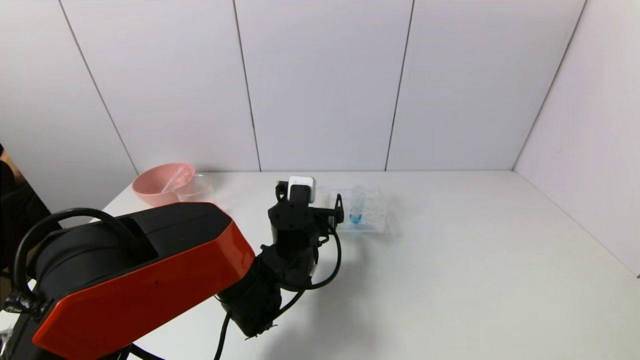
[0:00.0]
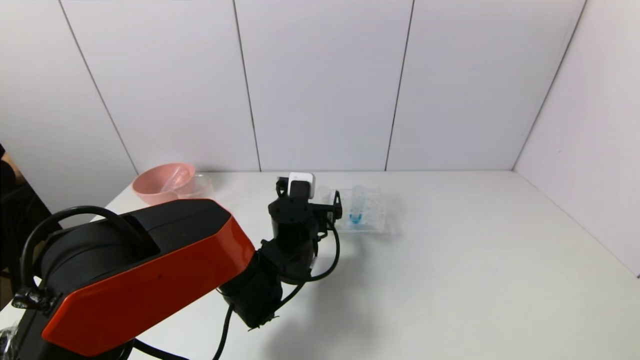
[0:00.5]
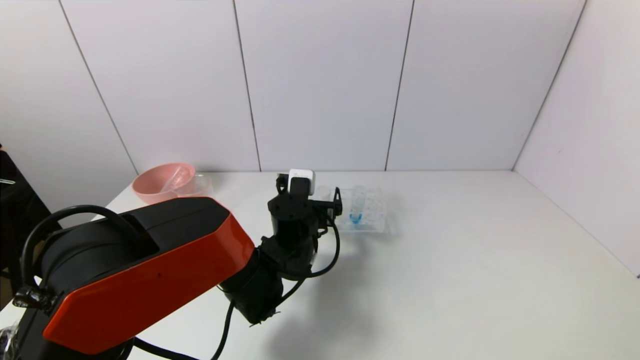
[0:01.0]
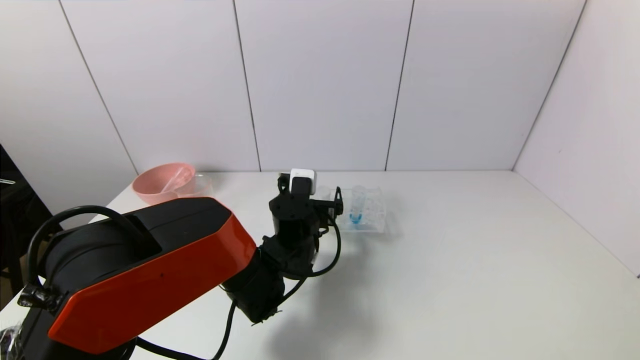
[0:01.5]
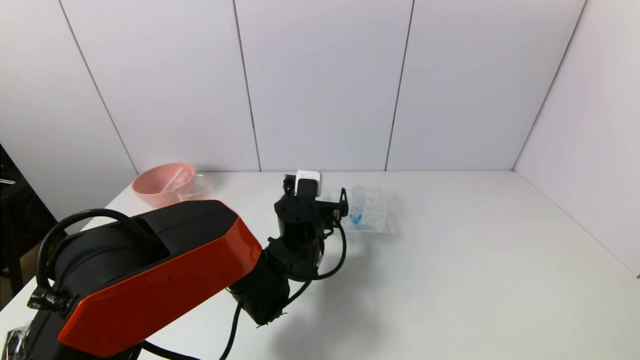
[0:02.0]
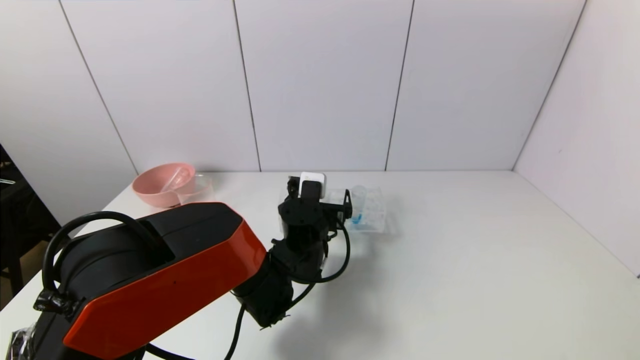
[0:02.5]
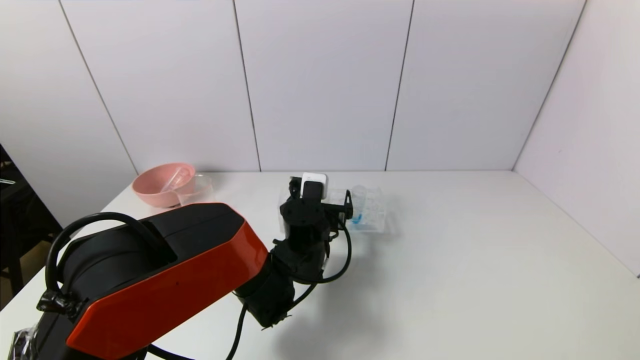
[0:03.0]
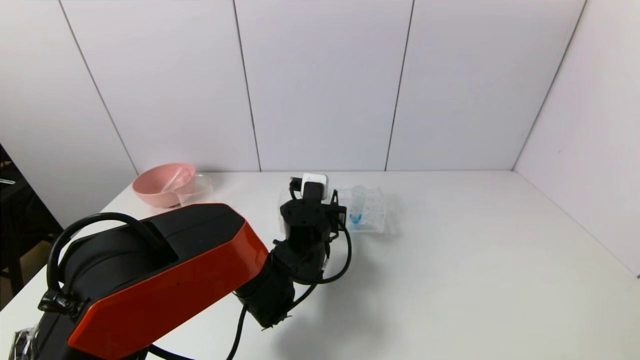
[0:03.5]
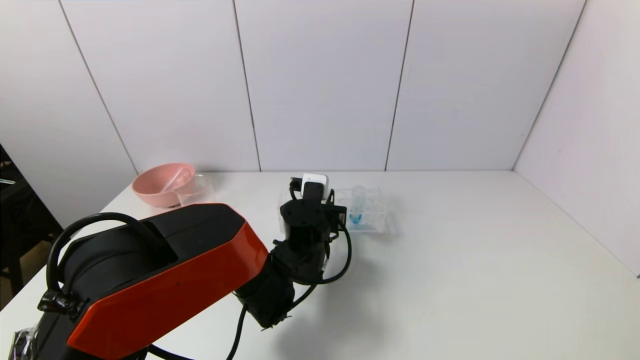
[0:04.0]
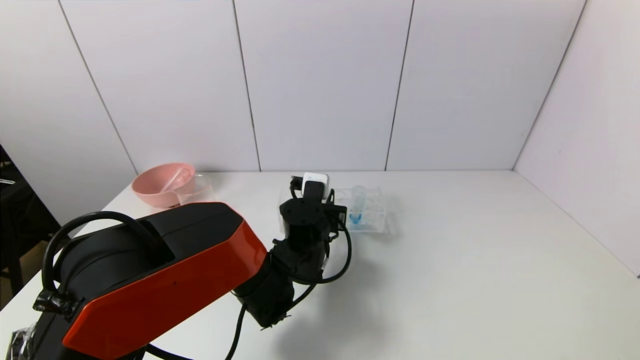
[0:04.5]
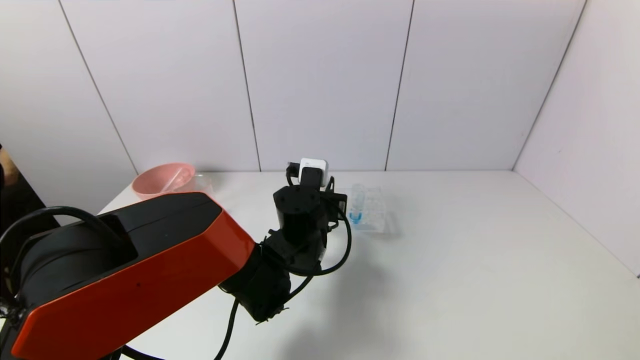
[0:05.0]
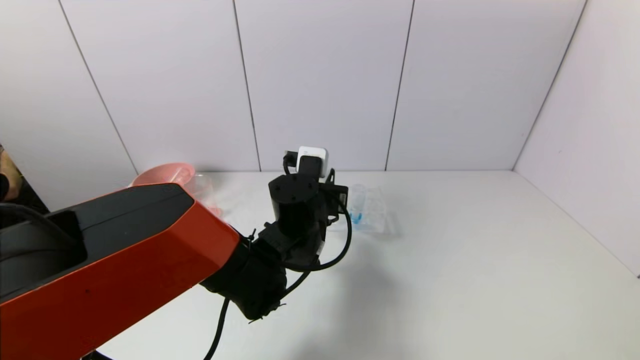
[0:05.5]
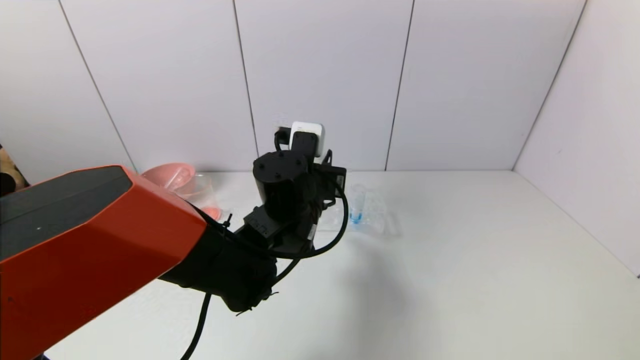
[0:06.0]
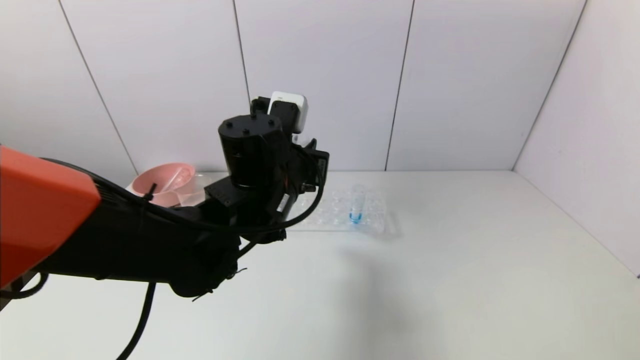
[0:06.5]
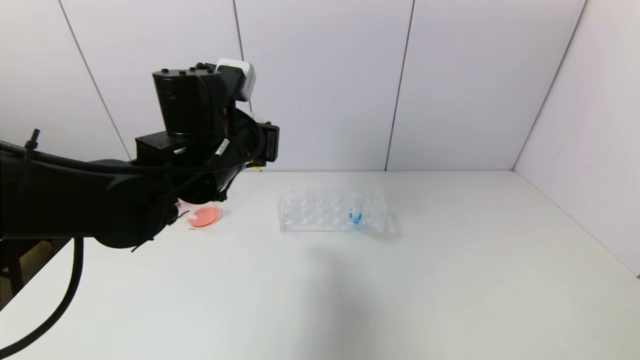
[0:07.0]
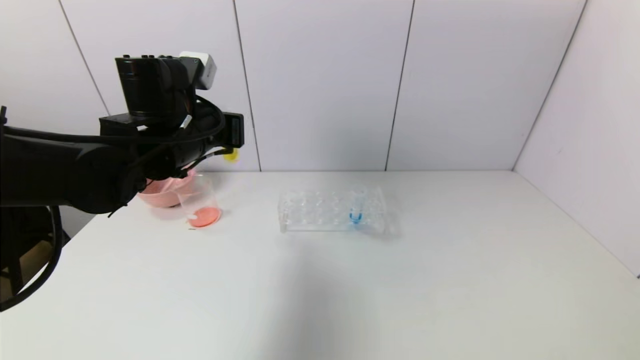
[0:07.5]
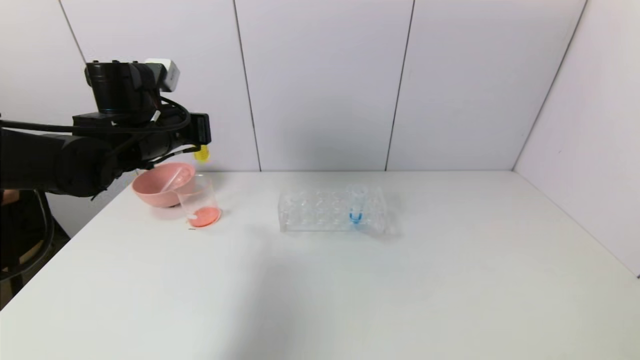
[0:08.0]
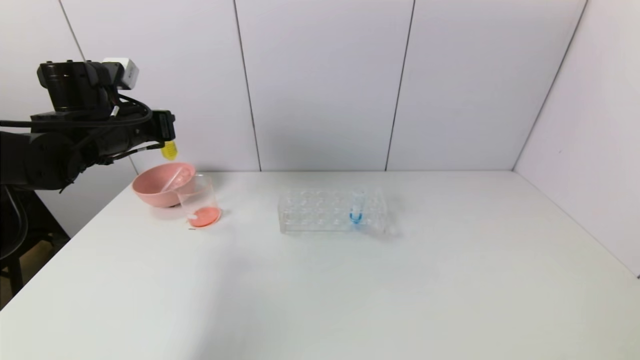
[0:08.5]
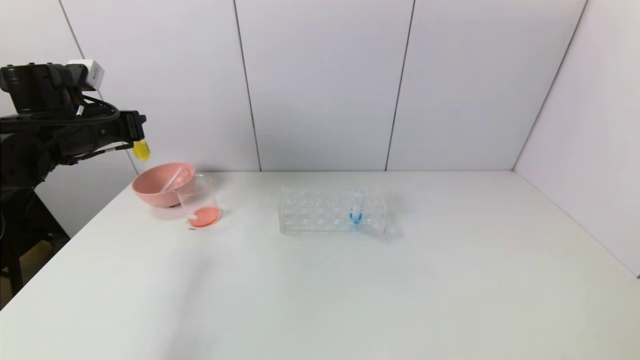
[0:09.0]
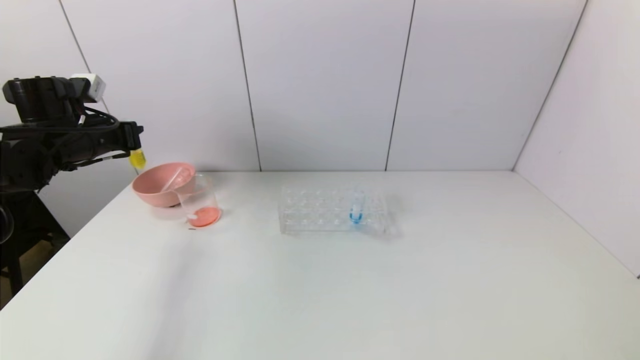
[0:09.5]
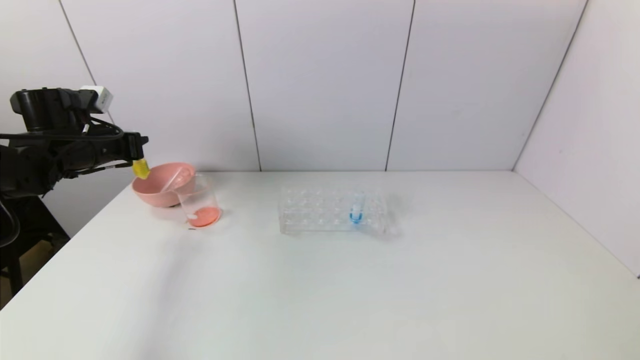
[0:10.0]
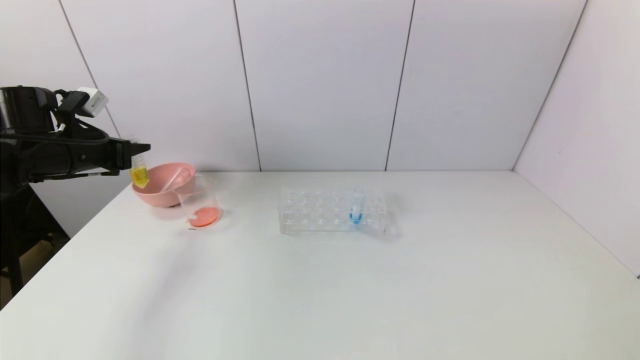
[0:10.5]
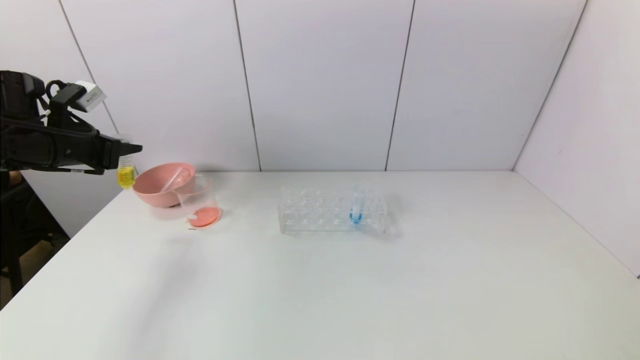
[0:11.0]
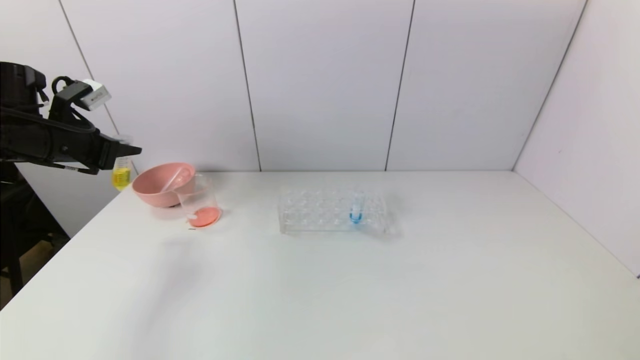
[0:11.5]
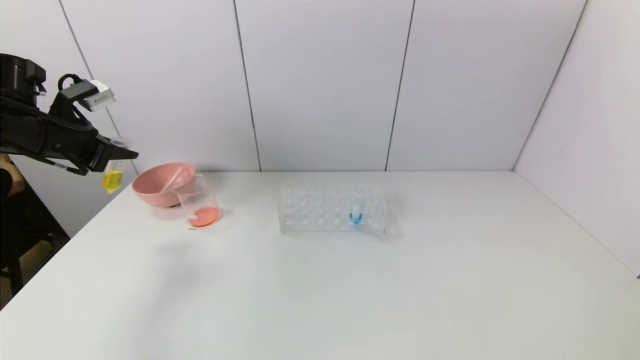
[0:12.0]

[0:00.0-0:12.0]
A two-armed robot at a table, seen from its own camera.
Task of the whole recording: pick up the test tube with yellow pigment and the test tube with red pigment by grippers and pour them into the beaker.
Step, 0:00.0 to 0:04.0: Grasp the yellow reagent with the left gripper.
0:00.0 to 0:02.0: The grippers make only small movements.
0:02.0 to 0:04.0: The left gripper closes up.
0:04.0 to 0:06.0: The left gripper is displaced upward by about 10 cm.
0:06.0 to 0:08.0: The left gripper goes approximately 20 cm to the left.
0:08.0 to 0:10.0: The left gripper is displaced to the left by approximately 15 cm.
0:10.0 to 0:12.0: The left gripper shifts by about 5 cm.

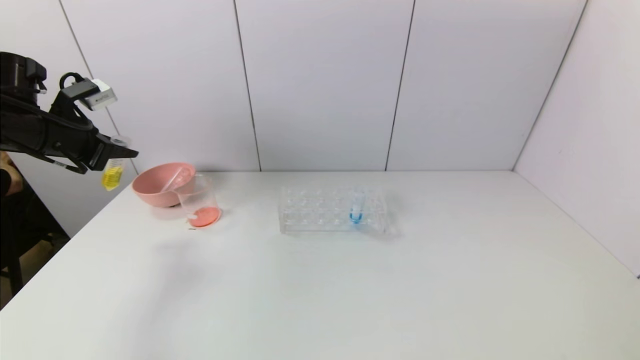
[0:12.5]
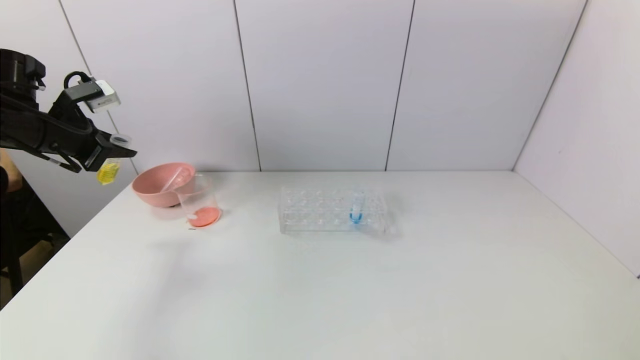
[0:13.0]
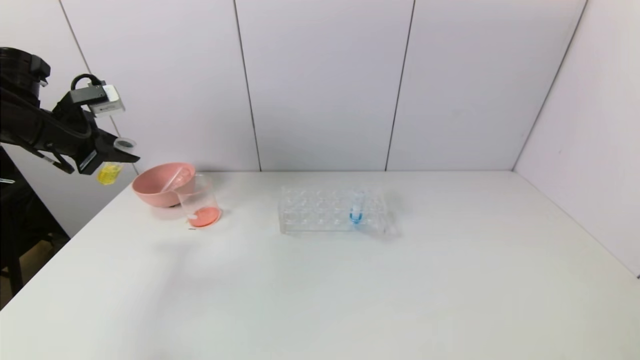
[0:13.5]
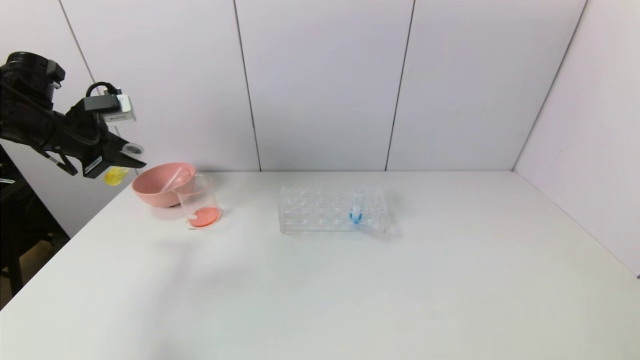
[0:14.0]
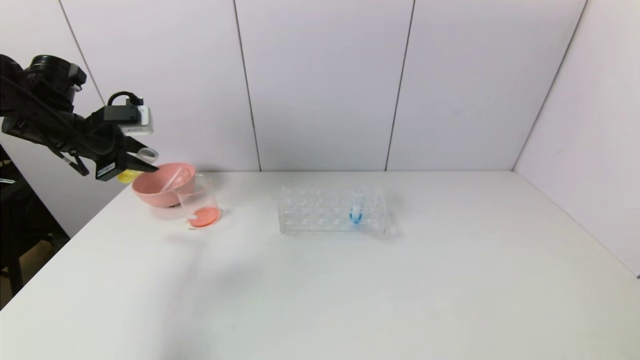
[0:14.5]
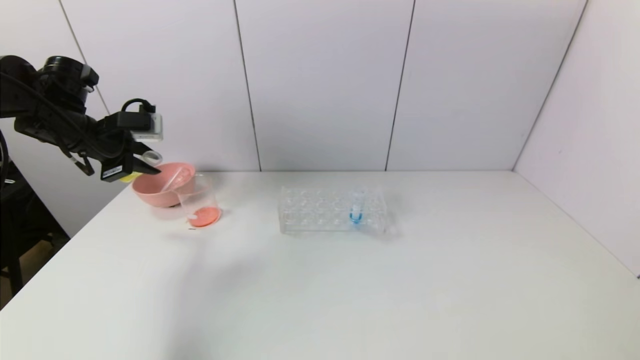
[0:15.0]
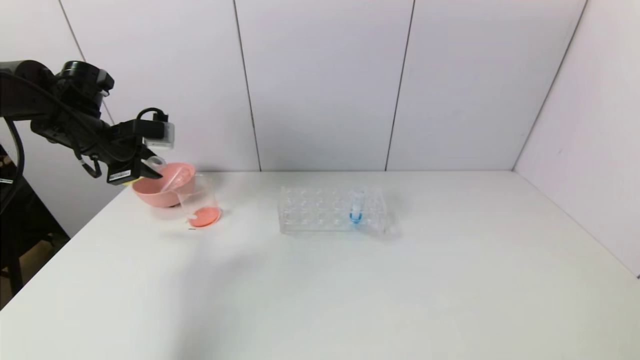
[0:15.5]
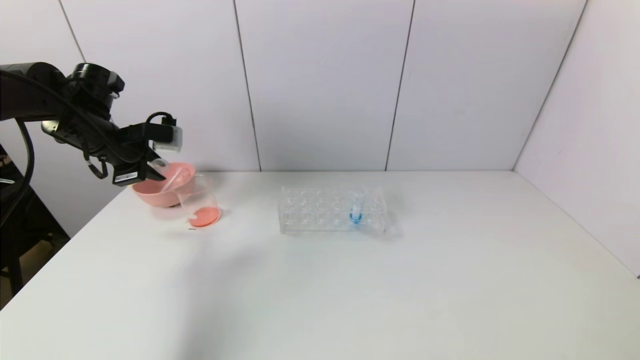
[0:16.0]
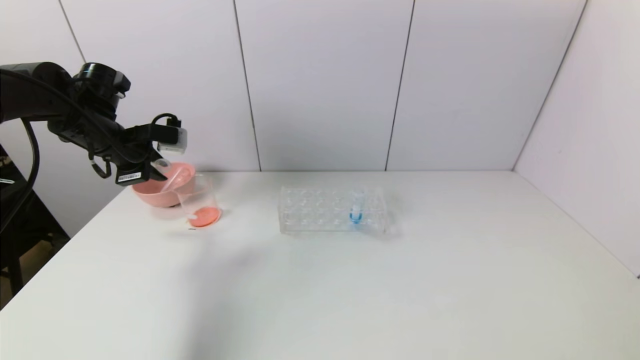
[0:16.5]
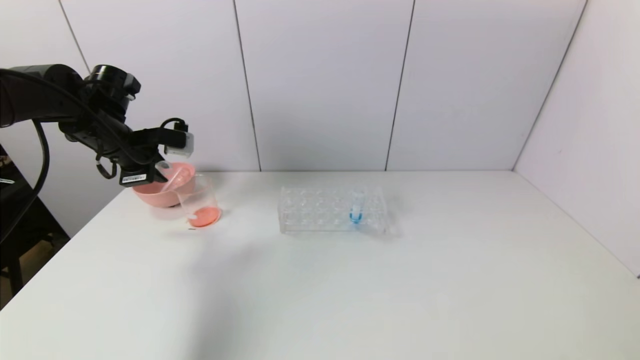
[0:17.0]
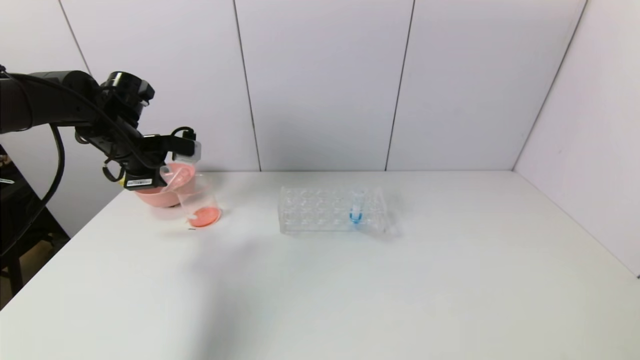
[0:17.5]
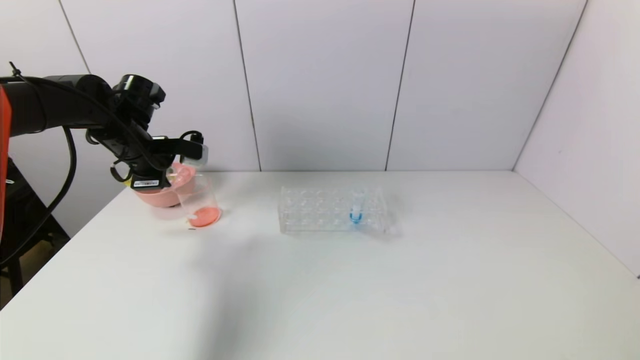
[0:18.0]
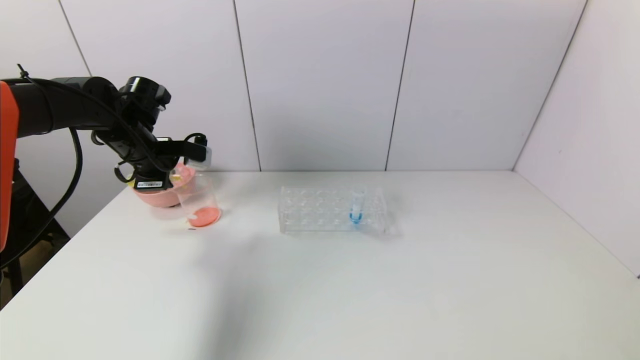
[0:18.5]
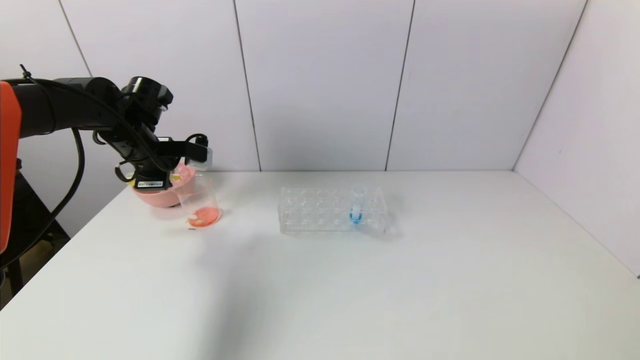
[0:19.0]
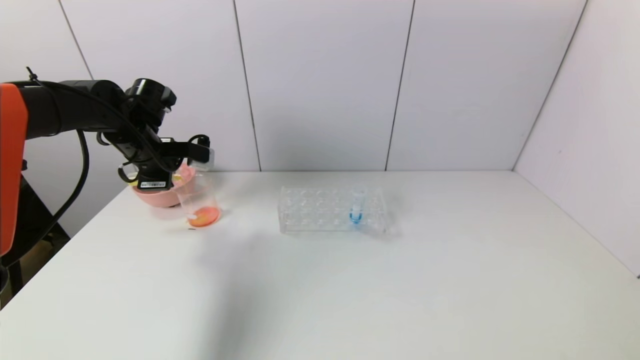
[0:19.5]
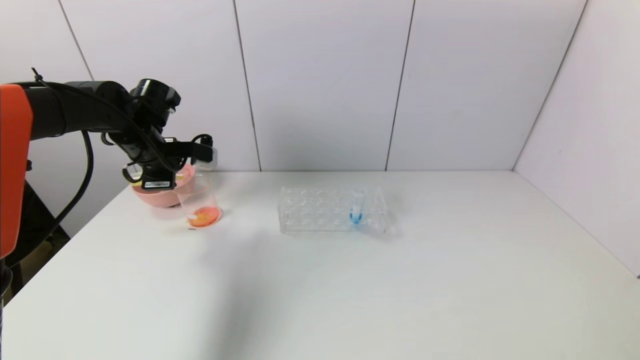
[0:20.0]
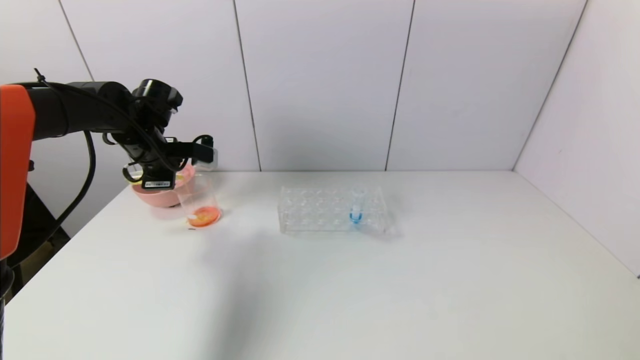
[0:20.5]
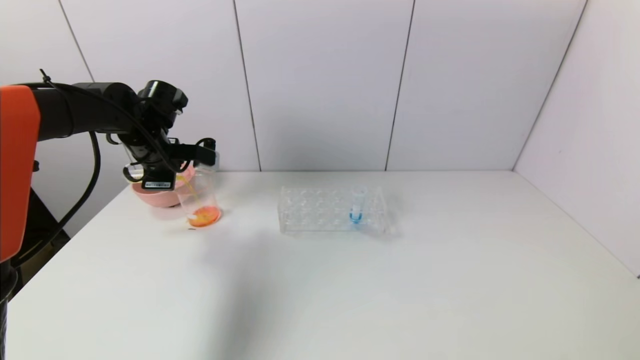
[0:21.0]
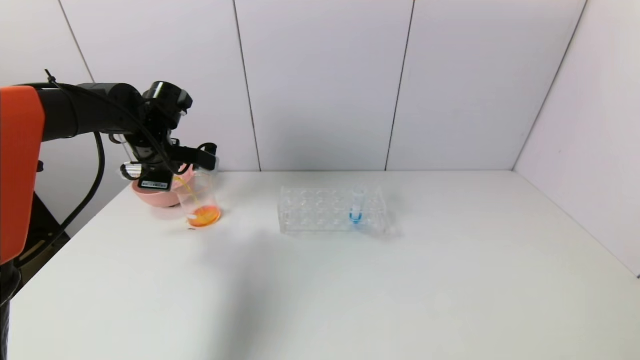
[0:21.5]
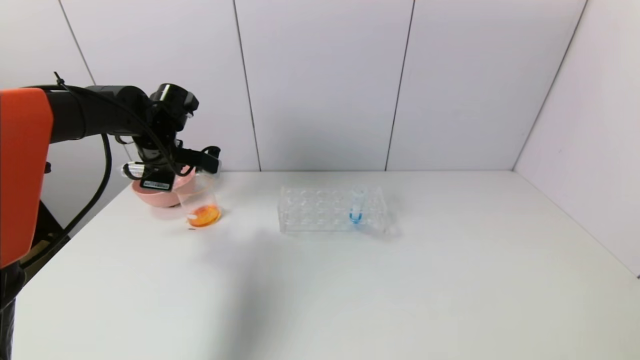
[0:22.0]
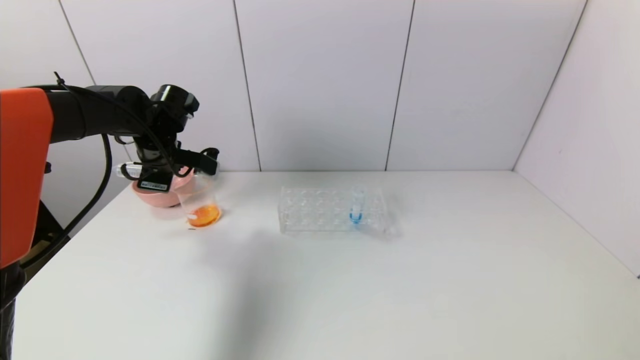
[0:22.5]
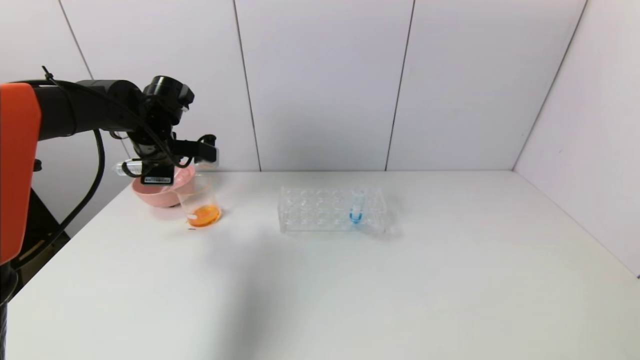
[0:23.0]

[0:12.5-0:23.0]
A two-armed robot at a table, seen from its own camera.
Task of the whole recording: pick up the test tube with yellow pigment and the test tube with red pigment by grippers and pour them into the beaker.
Step, 0:12.5 to 0:22.5: Pour the yellow reagent into the graduated cylinder with the left gripper.
0:14.5 to 0:16.5: The grippers make only small movements.
0:16.5 to 0:19.0: The grippers move only a little.
0:19.0 to 0:23.0: The grippers move only a little.
